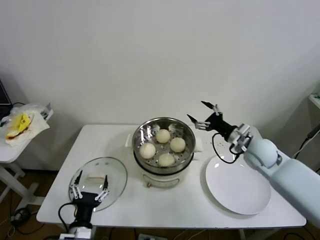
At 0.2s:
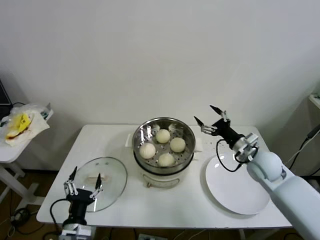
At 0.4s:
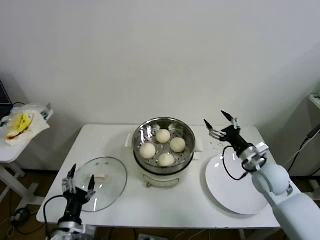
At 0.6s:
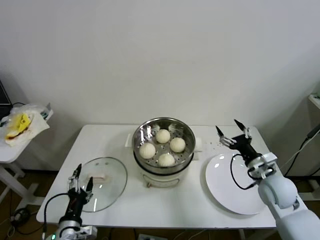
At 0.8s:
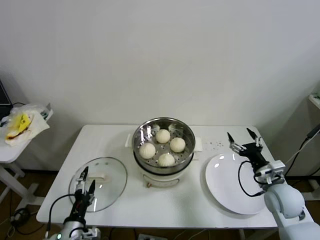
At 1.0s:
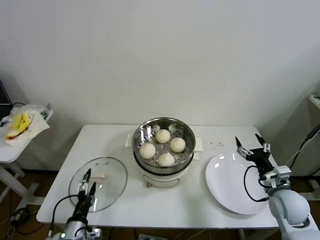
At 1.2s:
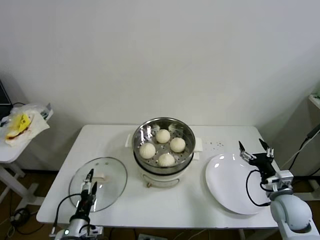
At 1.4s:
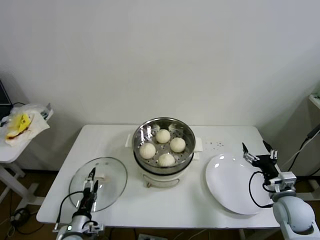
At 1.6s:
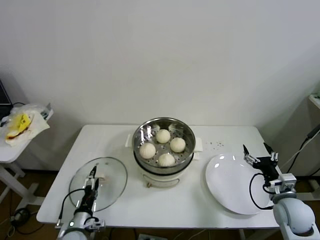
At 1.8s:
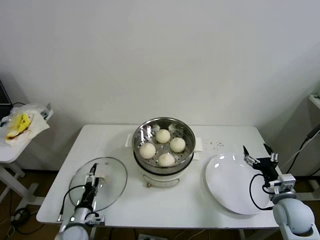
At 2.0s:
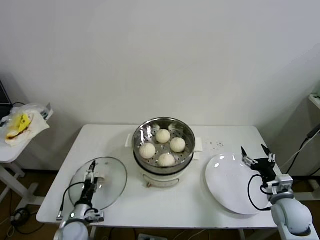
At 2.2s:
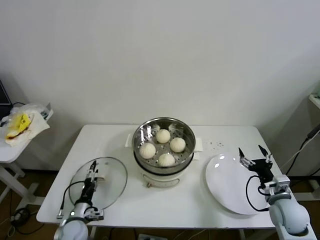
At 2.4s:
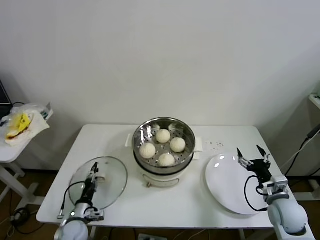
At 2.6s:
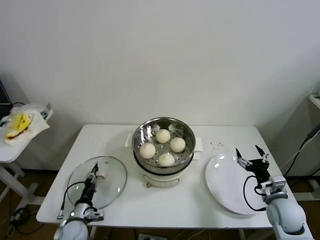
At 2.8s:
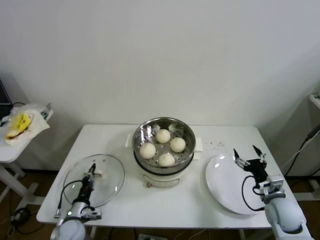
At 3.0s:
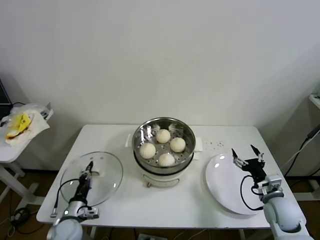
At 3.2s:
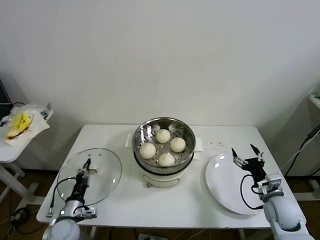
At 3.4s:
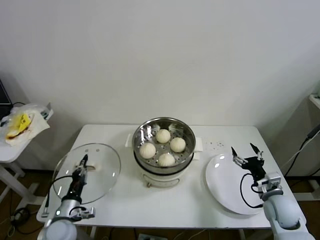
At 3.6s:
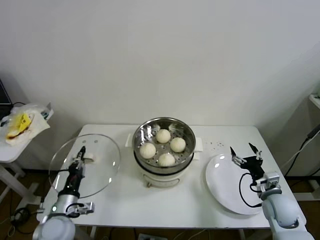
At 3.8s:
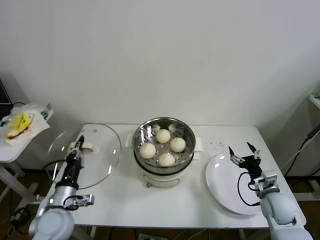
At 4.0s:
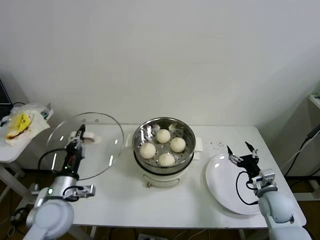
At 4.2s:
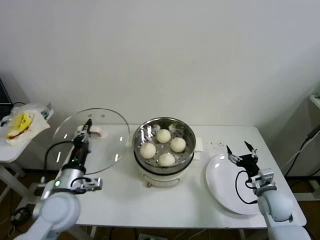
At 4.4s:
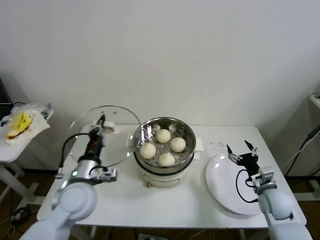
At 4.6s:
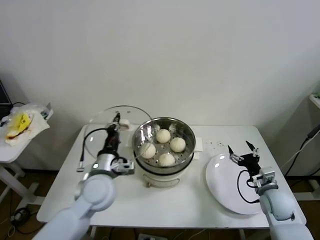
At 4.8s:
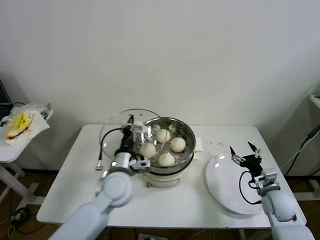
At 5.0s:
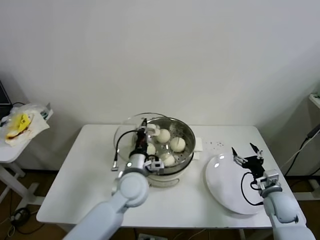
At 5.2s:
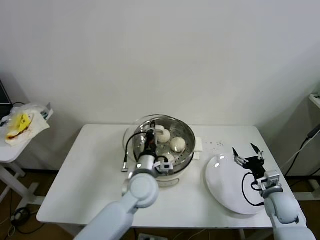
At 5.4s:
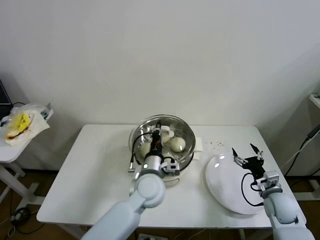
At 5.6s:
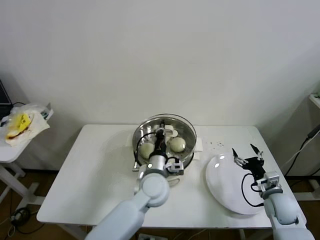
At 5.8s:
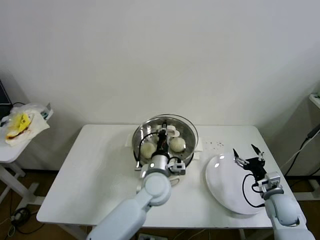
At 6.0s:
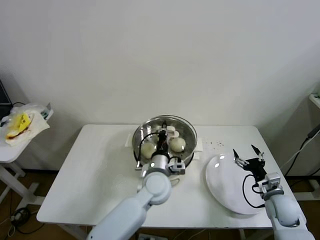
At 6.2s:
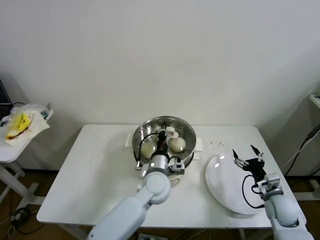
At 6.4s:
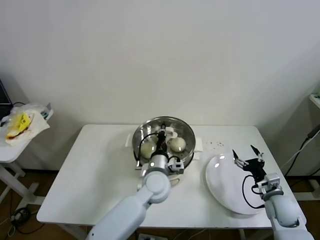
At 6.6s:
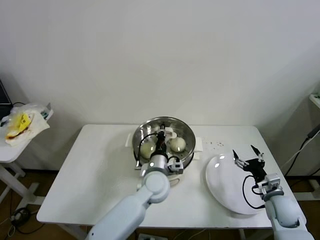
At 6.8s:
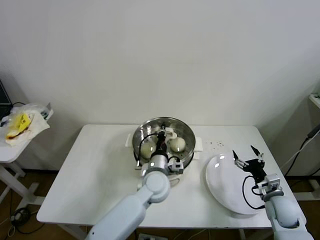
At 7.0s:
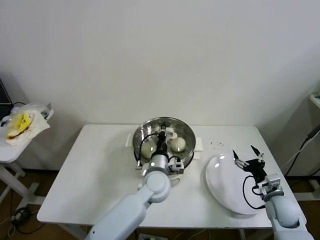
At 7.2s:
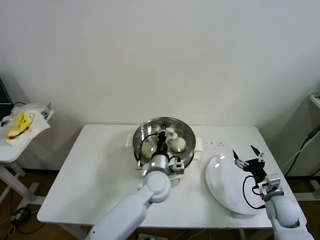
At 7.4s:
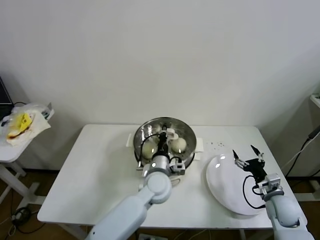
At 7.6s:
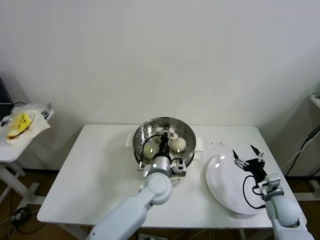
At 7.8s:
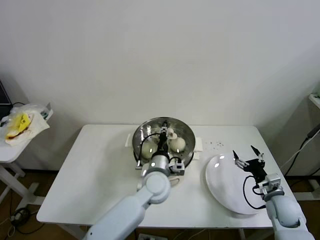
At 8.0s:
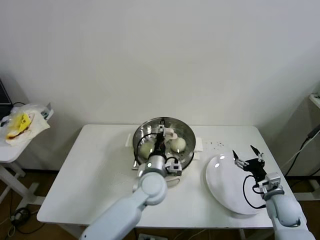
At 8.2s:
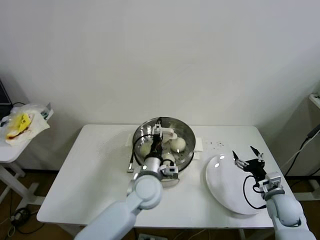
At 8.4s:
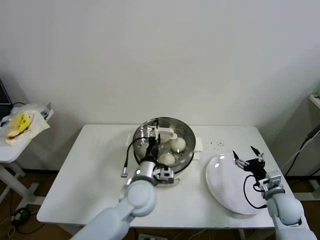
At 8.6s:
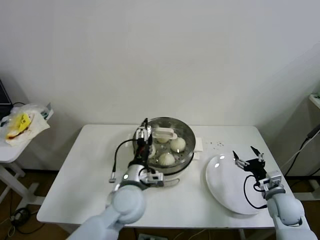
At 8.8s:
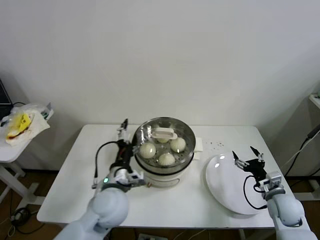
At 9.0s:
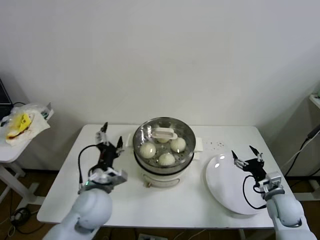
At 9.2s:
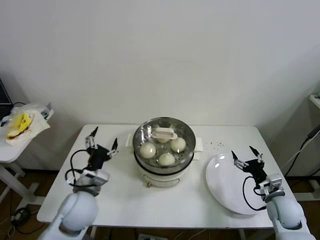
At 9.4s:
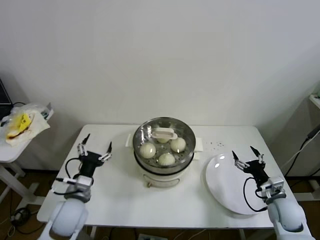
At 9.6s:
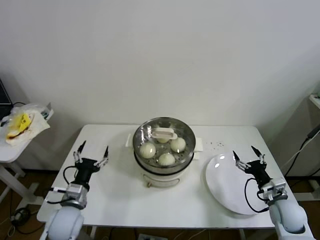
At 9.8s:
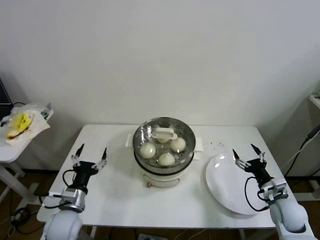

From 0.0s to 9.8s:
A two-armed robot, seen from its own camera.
Step, from 0.0s to 2.8s: Grasp the pot lid with left gripper.
Step, from 3.0s to 7.4s: Place the pot lid on the steamer with left gripper.
From 0.0s to 1.4s: The right gripper shifts approximately 20 cm backward, downward and to the right. Meanwhile the left gripper heads downward, to the left and forward, covering approximately 10 cm.
From 1.4s to 2.8s: The left gripper goes some 5 cm forward, and closes.
From 2.8s to 4.2s: The left gripper moves upward, roughly 20 cm.
From 4.2s to 5.6s: The left gripper is displaced to the right by roughly 25 cm.
From 5.6s to 7.0s: The grippers stay close to where they were, moving slightly.
From 7.0s to 8.4s: The left gripper moves roughly 5 cm, and opens.
From 8.4s to 9.8s: The left gripper travels to the left by about 25 cm.

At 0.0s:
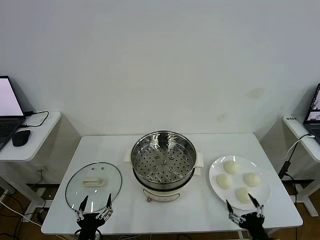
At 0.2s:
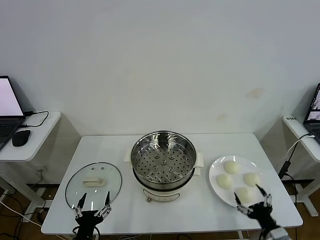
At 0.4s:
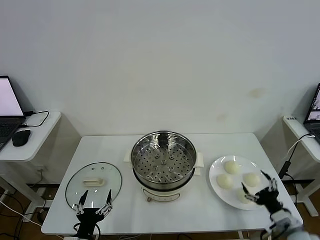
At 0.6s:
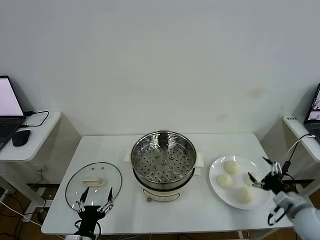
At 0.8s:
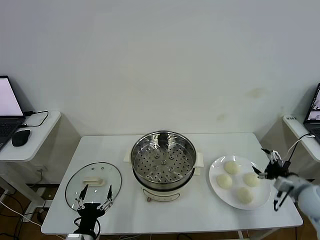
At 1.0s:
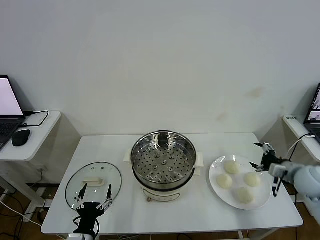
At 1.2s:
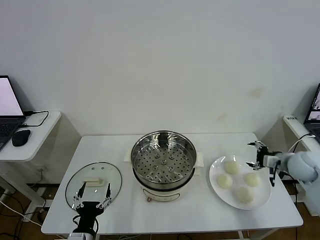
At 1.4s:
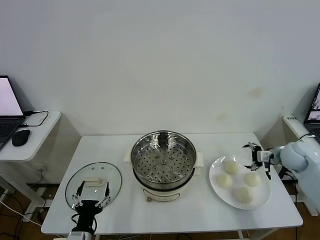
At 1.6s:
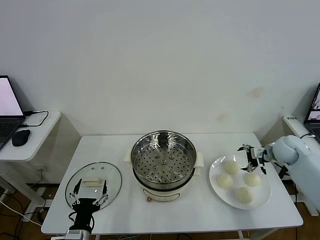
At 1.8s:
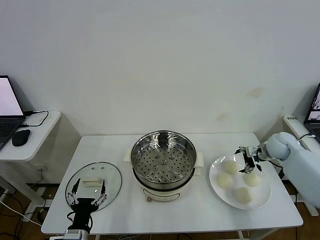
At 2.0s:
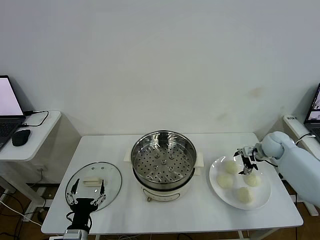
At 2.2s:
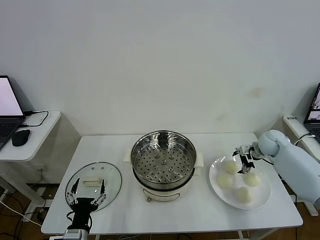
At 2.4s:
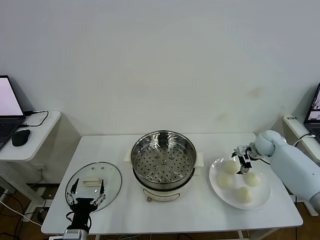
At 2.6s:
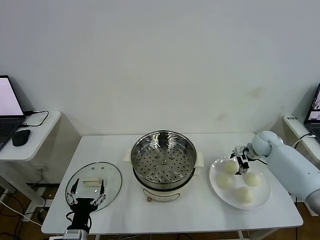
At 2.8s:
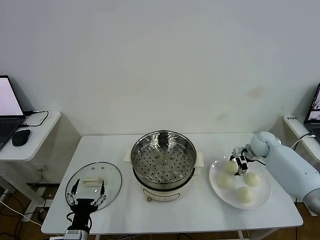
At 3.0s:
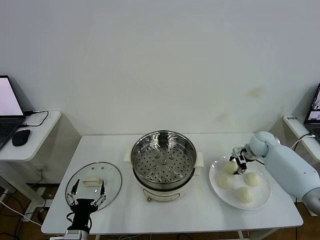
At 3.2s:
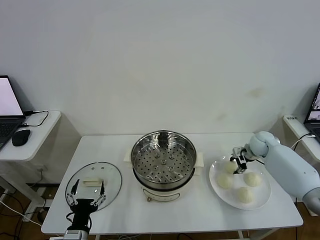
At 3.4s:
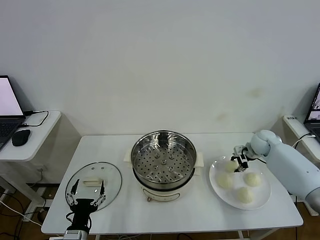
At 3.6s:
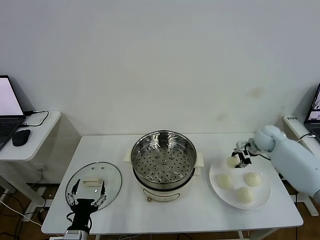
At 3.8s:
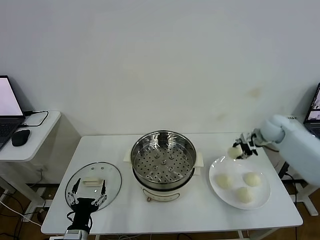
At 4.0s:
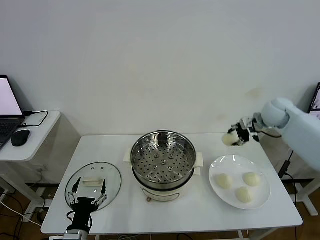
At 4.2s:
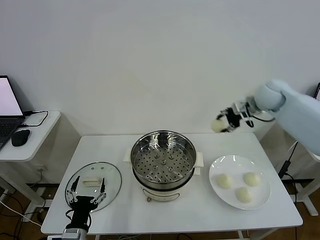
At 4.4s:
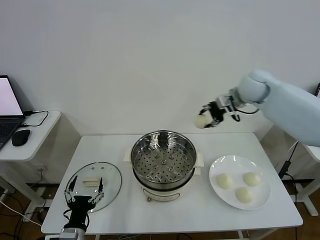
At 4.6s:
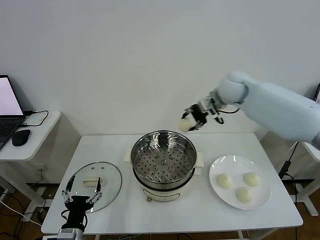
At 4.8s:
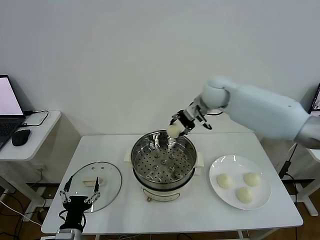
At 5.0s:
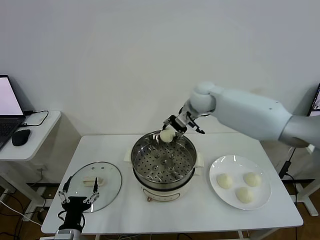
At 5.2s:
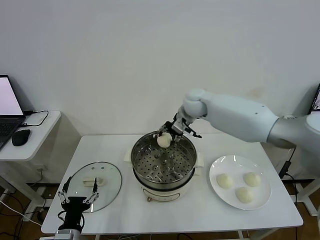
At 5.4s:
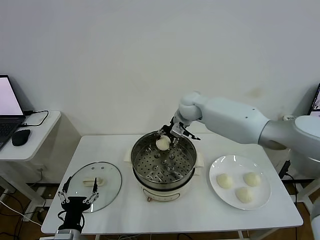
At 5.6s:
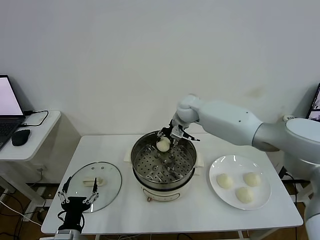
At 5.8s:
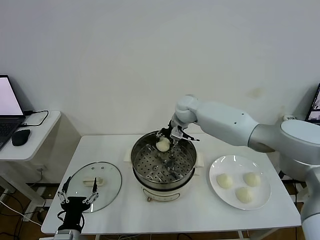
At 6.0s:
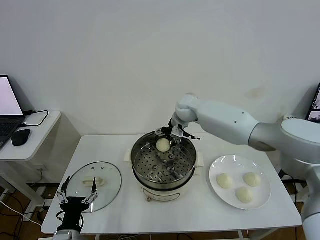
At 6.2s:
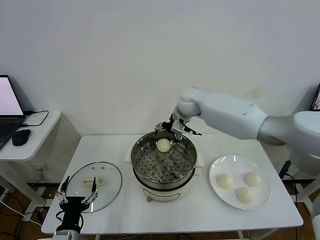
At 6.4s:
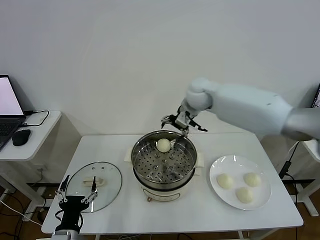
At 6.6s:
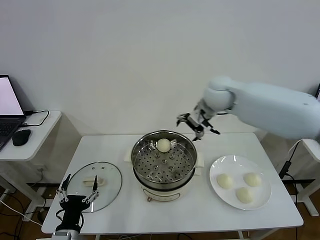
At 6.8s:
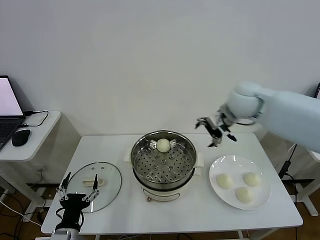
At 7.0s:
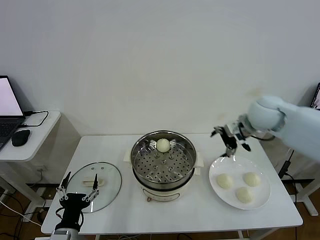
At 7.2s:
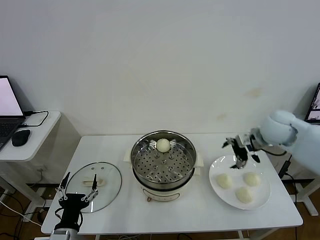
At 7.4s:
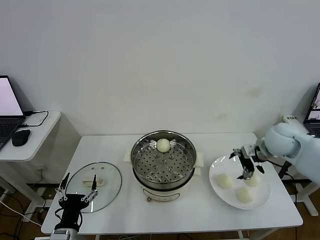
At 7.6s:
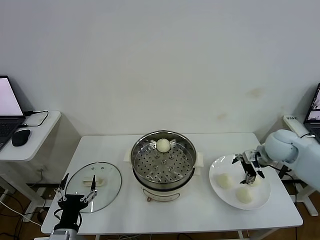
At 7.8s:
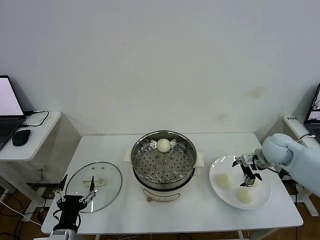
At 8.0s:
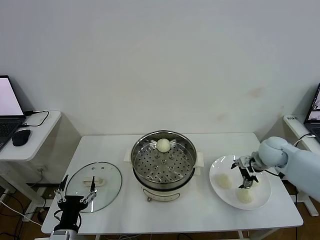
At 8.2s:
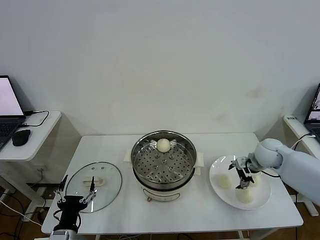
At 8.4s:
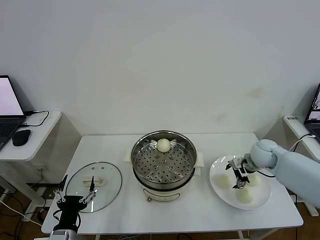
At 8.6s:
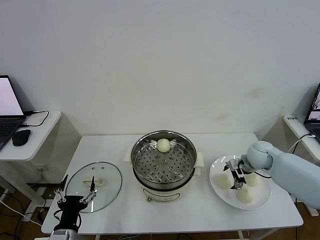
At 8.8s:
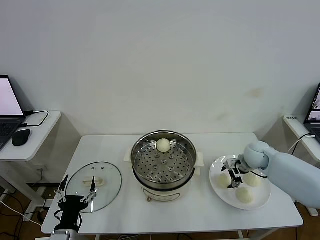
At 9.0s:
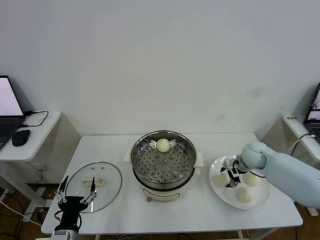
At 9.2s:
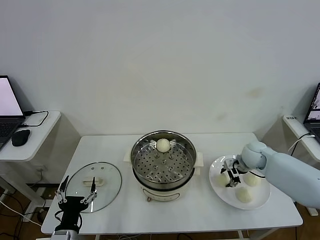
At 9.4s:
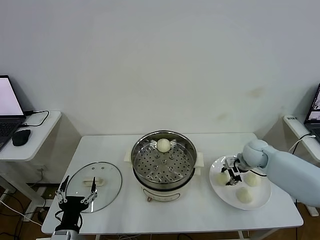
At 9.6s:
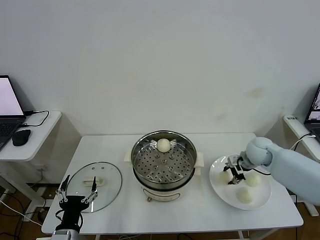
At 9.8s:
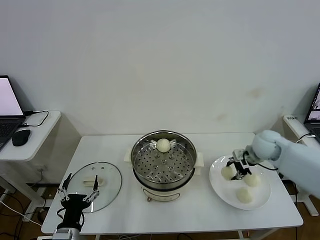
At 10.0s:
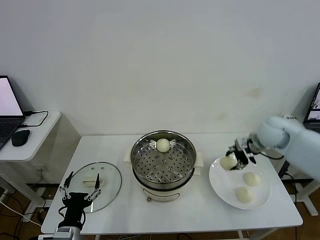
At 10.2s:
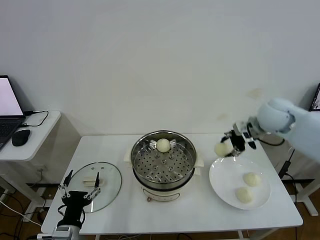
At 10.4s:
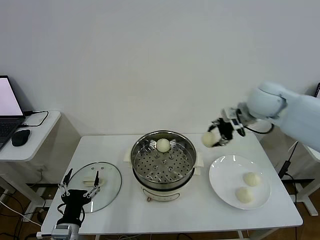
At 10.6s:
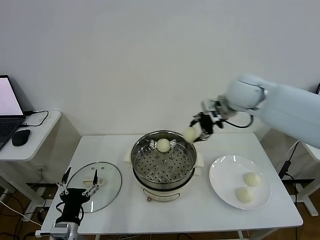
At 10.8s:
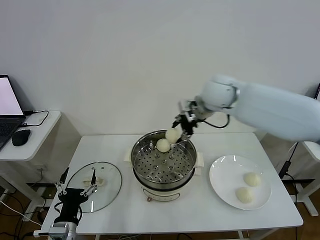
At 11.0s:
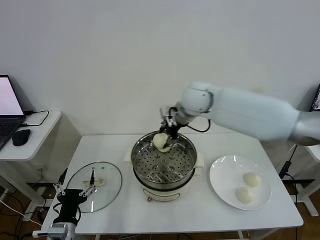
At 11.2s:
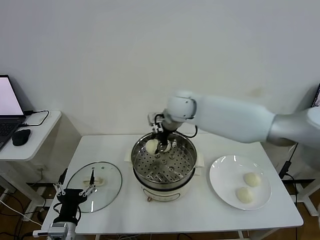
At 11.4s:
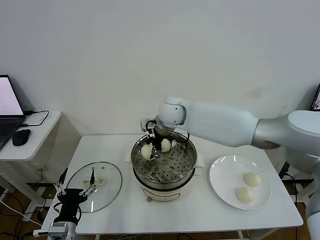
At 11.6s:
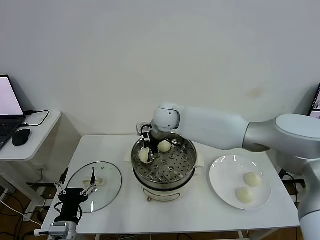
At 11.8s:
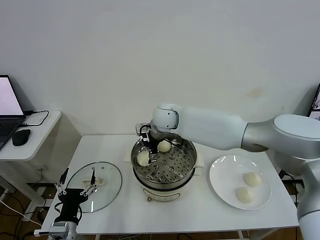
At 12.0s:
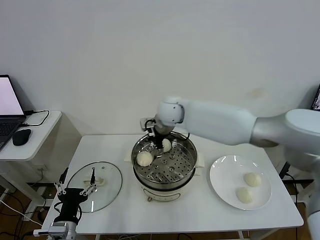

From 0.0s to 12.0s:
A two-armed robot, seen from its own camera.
Step, from 0.0s to 3.0s: Grasp the baozi in the plate with right gripper.
Step, from 3.4s to 6.2s: Place the baozi on the steamer with right gripper.
Step, from 6.4s to 9.2s: Grasp the baozi in the plate with right gripper.
From 1.6s to 3.0s: The right gripper is displaced forward by roughly 5 cm, and closes its fingers.
From 3.0s to 4.4s: The right gripper travels upward and to the left by about 30 cm.
From 4.4s to 6.0s: The right gripper shifts some 15 cm to the left and downward, and opens.
From 6.0s to 7.6s: The right gripper goes some 30 cm to the right and backward.
From 7.6s to 9.0s: The right gripper heads downward, covering about 10 cm, and closes its fingers.
From 9.0s to 10.4s: The right gripper travels upward by some 25 cm.
From 10.4s to 12.0s: The right gripper goes some 20 cm to the left, and opens up.
